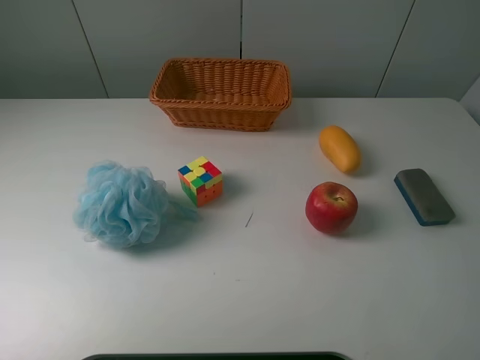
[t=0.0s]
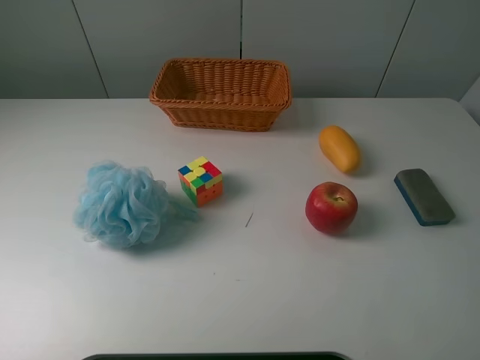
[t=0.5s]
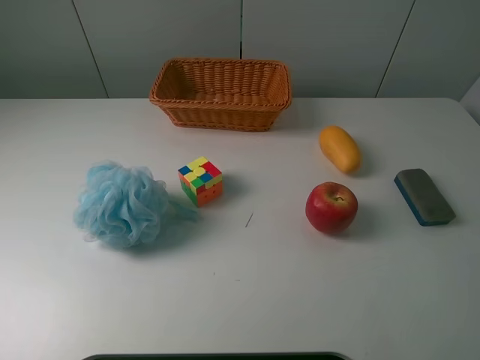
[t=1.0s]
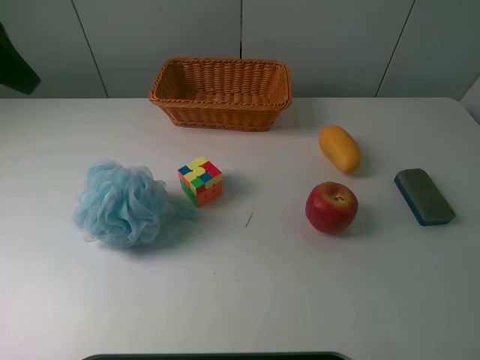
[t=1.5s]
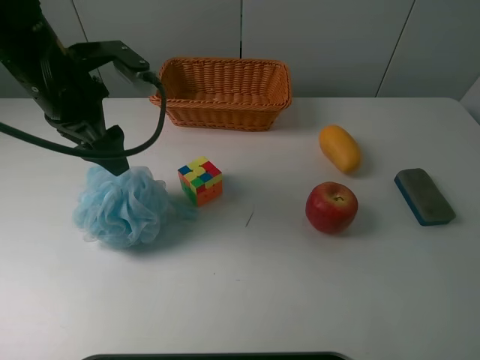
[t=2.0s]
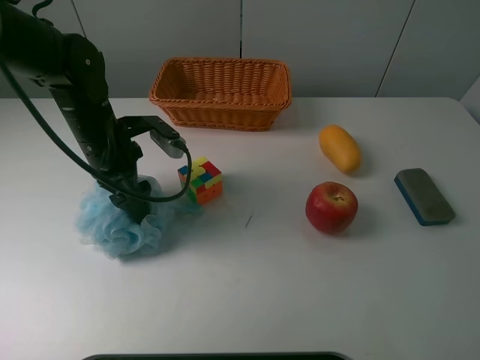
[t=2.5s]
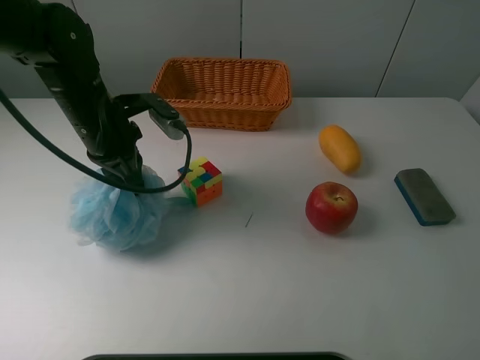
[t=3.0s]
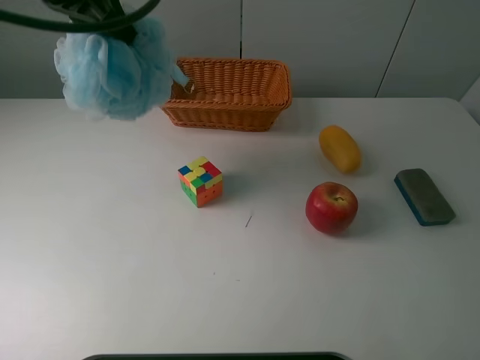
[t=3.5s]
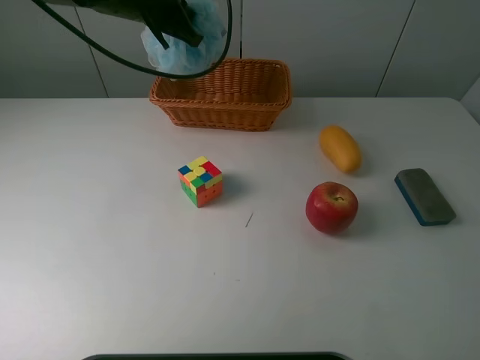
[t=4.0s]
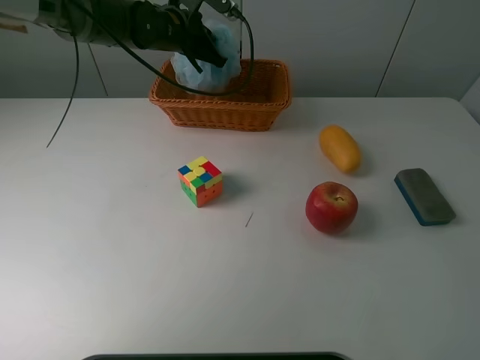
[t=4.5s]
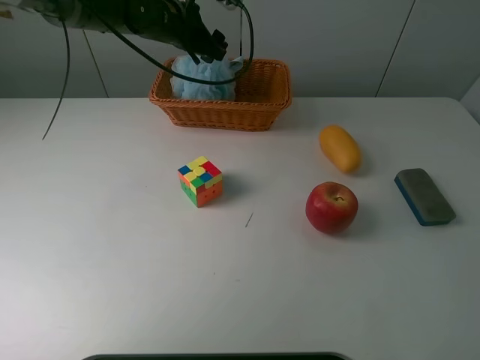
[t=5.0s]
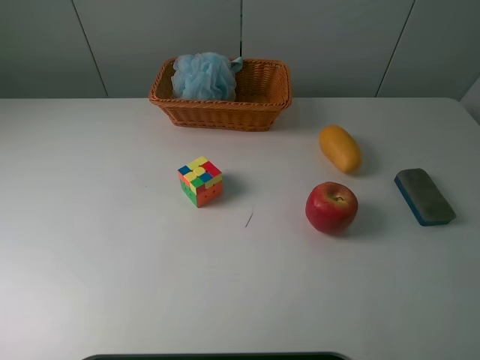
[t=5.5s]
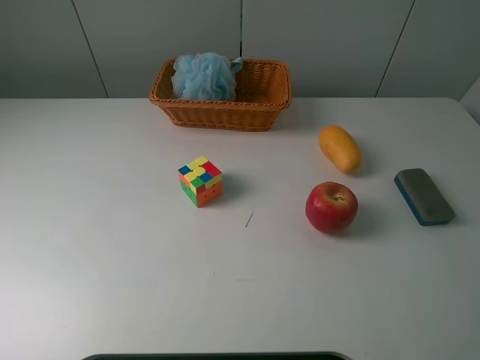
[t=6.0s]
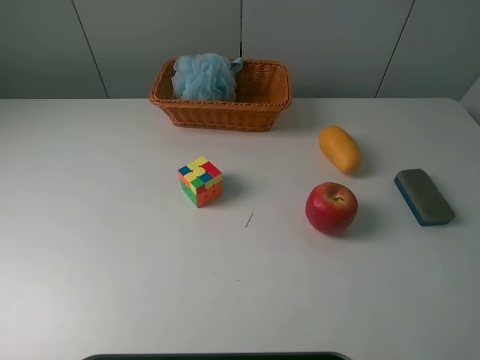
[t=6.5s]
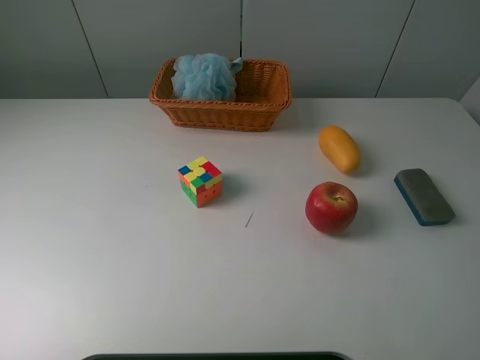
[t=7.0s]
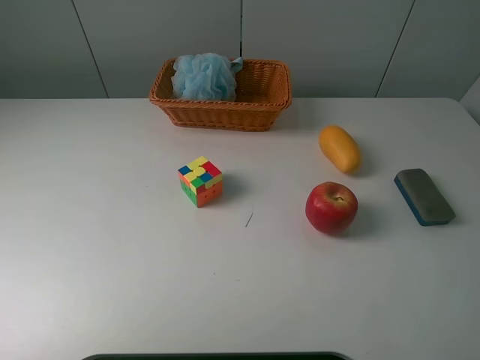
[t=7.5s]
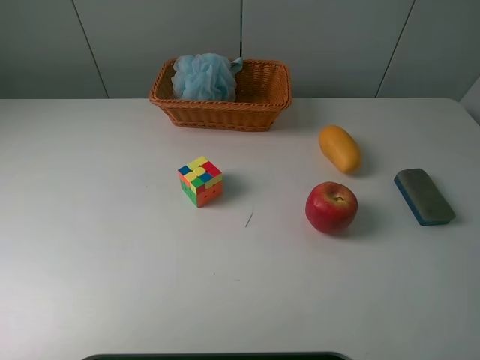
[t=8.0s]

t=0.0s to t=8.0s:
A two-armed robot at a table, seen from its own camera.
Task of the whole recording: use a picker to grab the item closest to the cube and place it in the basket.
Step, t=0.0s to t=2.5s: Grasp the Shower puff with the left gripper.
Step, t=3.0s to t=5.0s: Place the Shower puff into the basket with the left gripper.
t=0.0s to t=2.0s: The left gripper heads forward and to the right, covering about 35 cm.
t=2.0s to t=4.0s: The left gripper goes up and down, some 25 cm each way, reversing 2 times, and closes its fingers.
t=4.0s to t=6.0s: The left gripper heads backward, upward and to the left, covering about 50 cm, and opens.

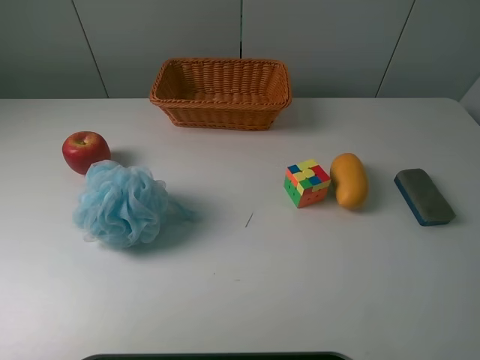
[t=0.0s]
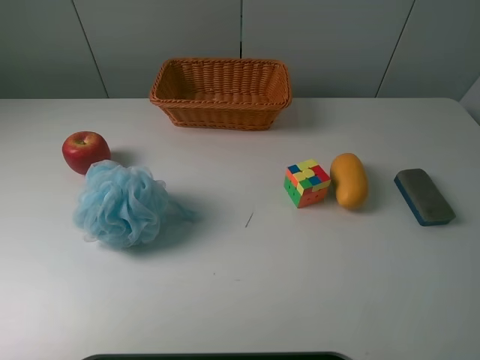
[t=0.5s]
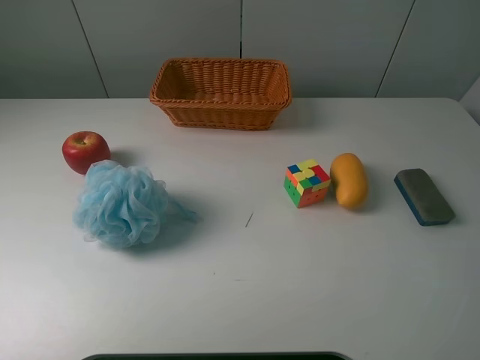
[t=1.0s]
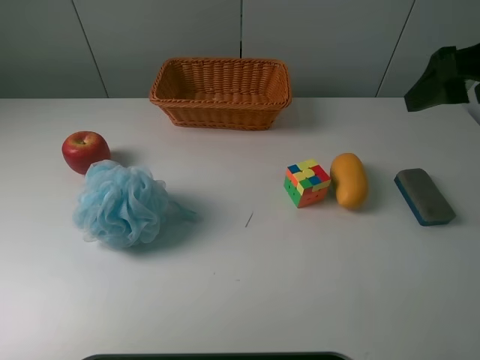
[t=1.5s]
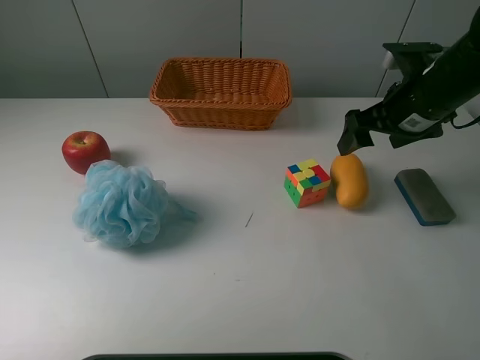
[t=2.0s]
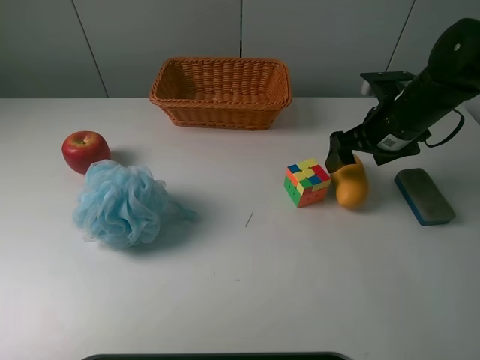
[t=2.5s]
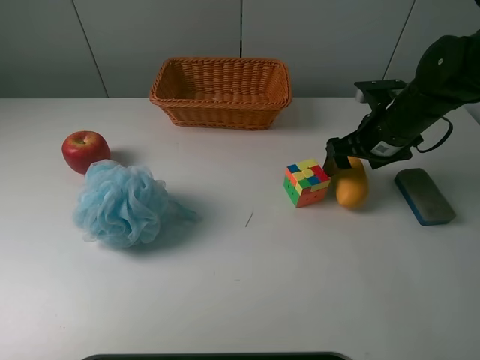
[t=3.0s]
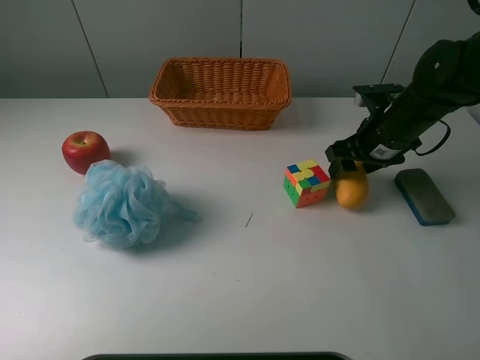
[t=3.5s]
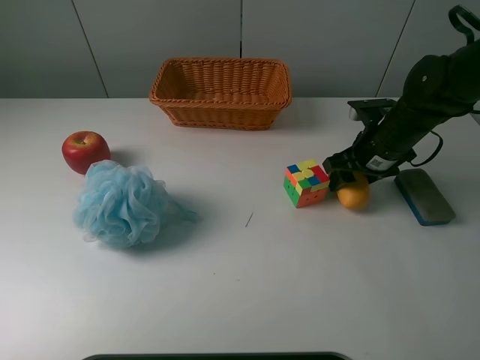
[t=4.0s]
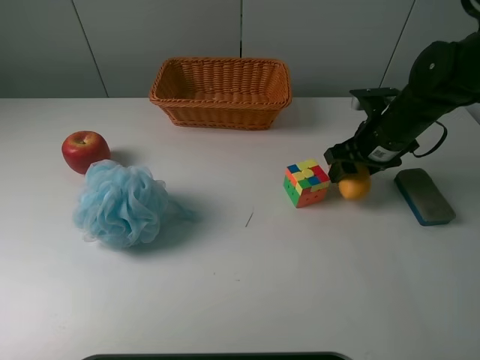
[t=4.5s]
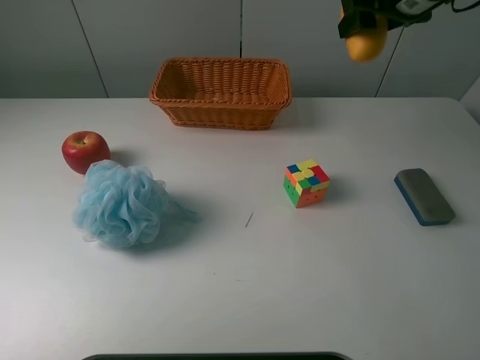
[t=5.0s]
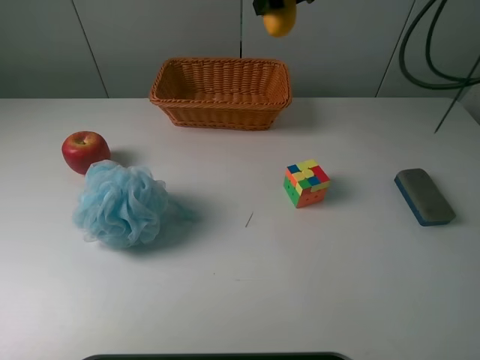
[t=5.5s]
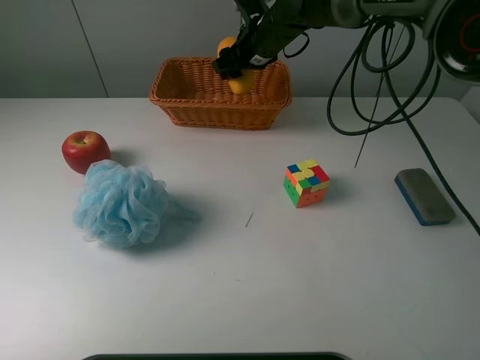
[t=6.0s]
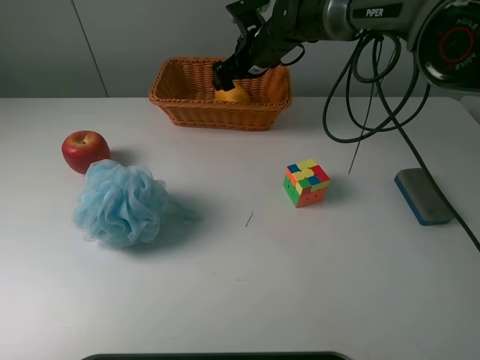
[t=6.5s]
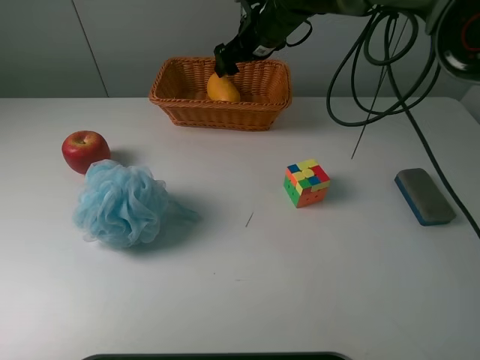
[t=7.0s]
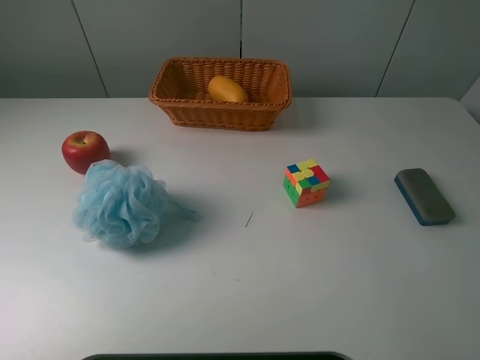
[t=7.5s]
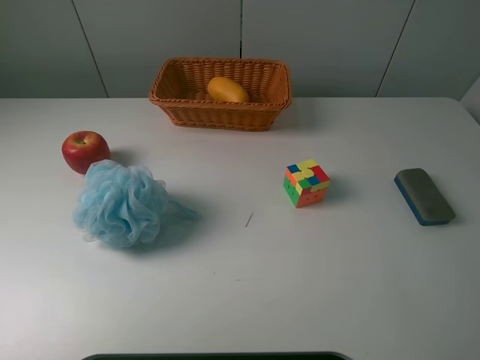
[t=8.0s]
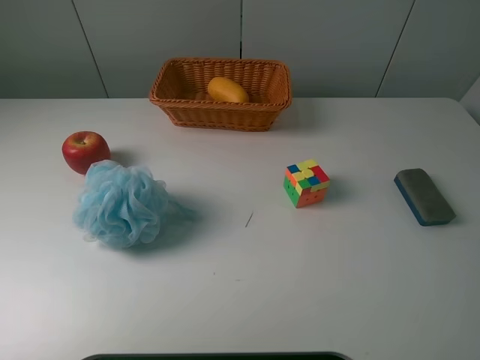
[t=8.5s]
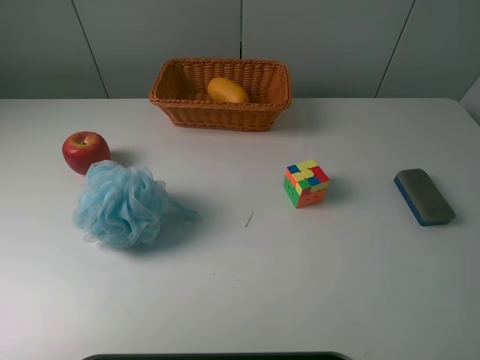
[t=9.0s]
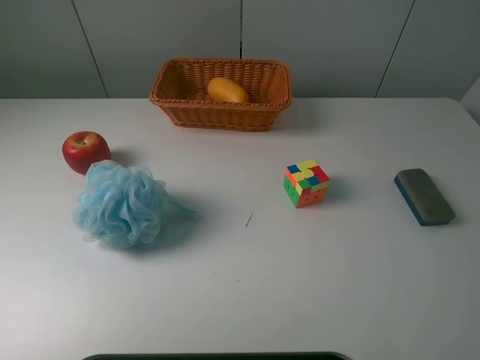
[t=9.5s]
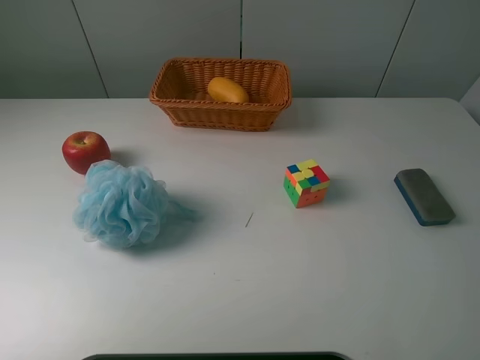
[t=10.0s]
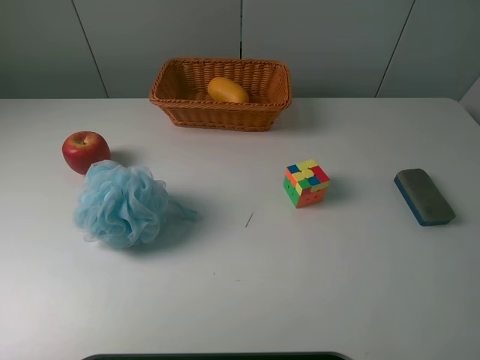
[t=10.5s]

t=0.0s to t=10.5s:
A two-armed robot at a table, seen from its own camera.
Task of the whole recording: use a picker to grab the item closest to the cube and place it in the basket.
Step, t=0.0s to t=4.0s: Grasp the mango with the right gripper.
Step, t=4.5s to t=6.5s: Place the mango into the basket with the right gripper.
t=0.0s to t=2.0s: The right gripper heads forward, covering roughly 30 cm.
t=2.0s to t=4.0s: The right gripper heads downward, covering about 10 cm, and closes up.
t=4.0s to t=6.5s: The right gripper heads to the left and forward, covering some 25 cm, travels upward and back again, some 20 cm each way, and opens up.
t=6.5s to t=8.5s: The right gripper goes some 50 cm backward, to the right and upward.
